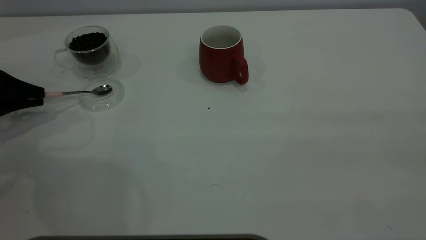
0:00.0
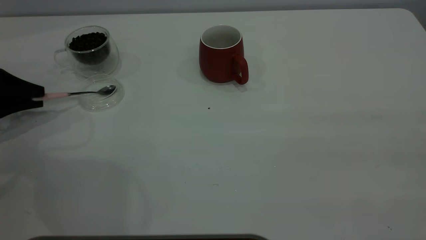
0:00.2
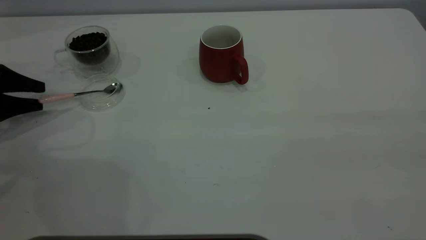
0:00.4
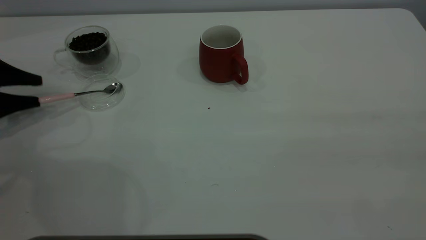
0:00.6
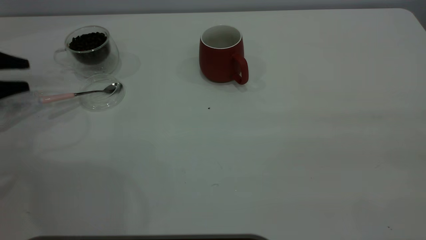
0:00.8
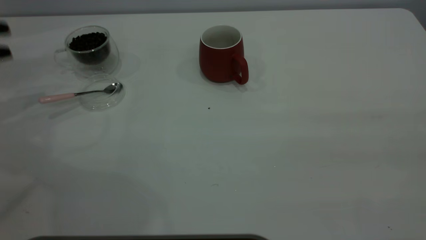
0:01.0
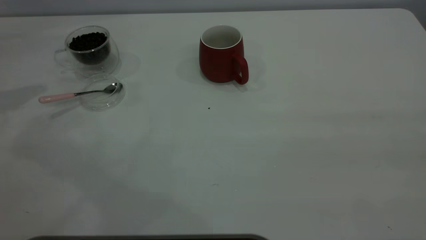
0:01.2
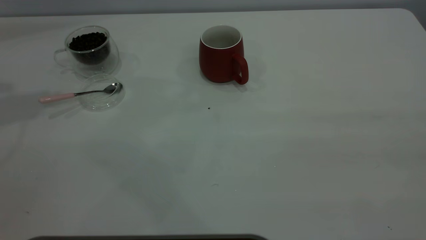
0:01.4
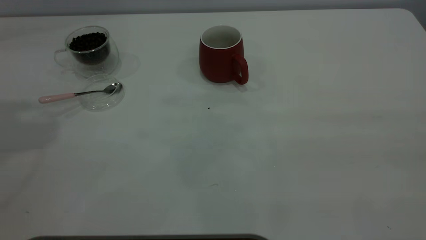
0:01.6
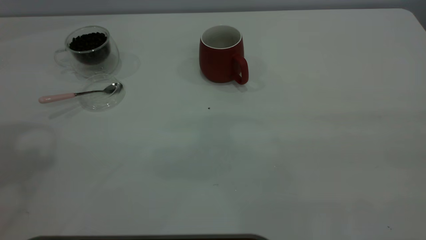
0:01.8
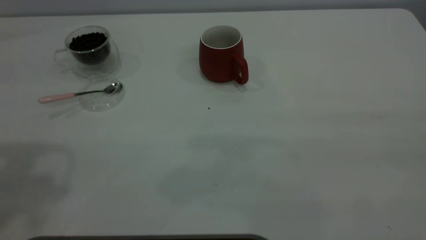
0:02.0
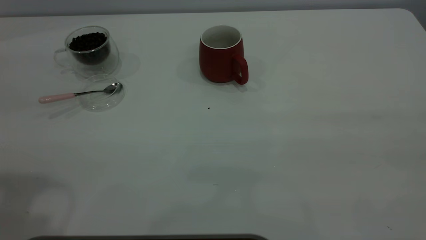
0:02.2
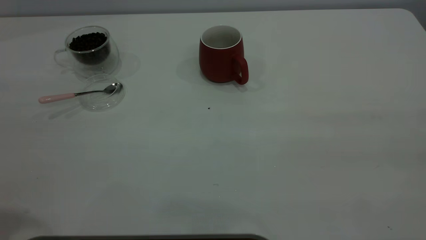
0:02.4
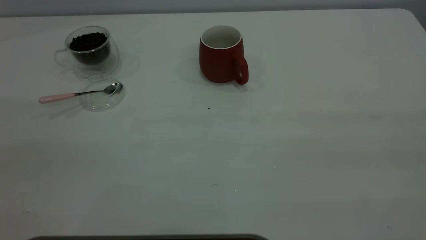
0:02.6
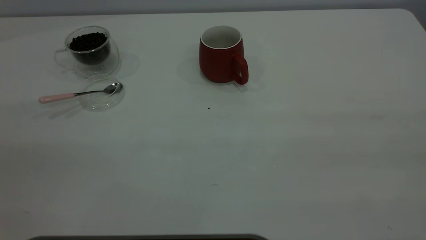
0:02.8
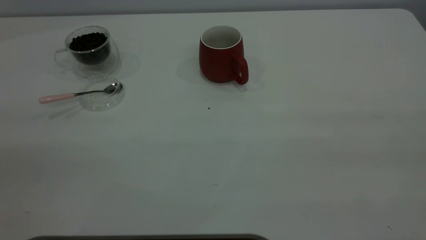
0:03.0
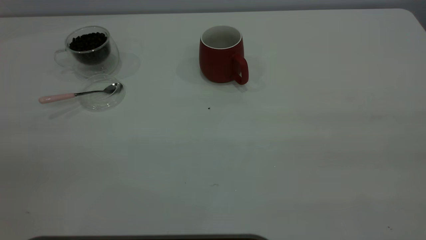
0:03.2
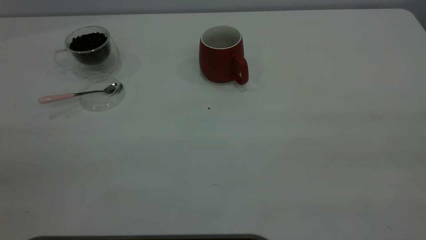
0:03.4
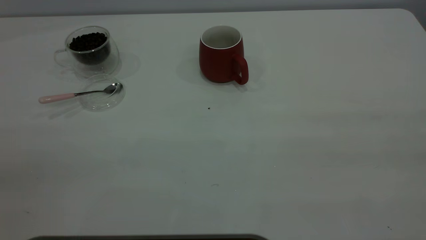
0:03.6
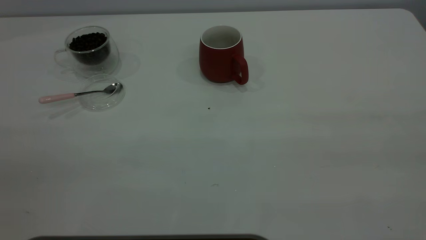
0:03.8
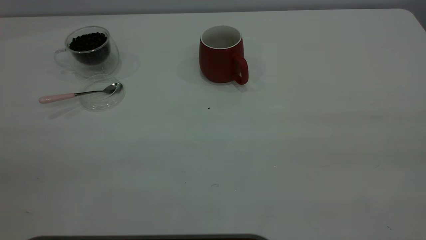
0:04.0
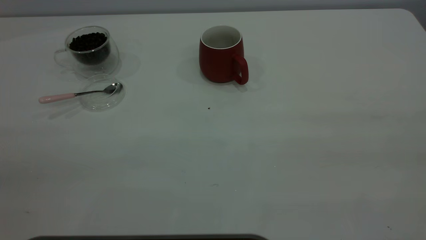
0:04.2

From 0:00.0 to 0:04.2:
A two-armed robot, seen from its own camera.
Task of the whole recording: the right gripper place the red cup in the center of the table, the left gripper take the pink spoon from the cup lid and scoop out the coffee beans from the coffee cup and put them into the red cup, the left gripper put the spoon back into the cup lid.
From 0:00.0 to 0:01.4: The left gripper goes some 30 cm upward, and opens.
